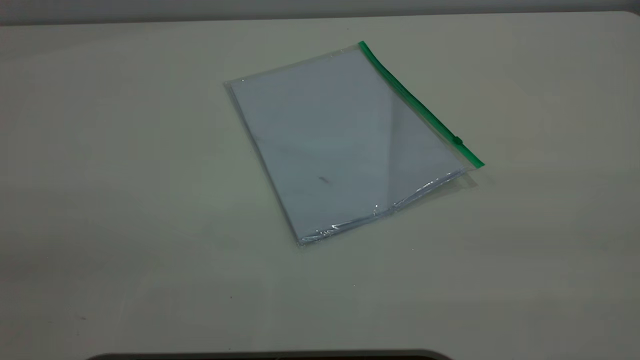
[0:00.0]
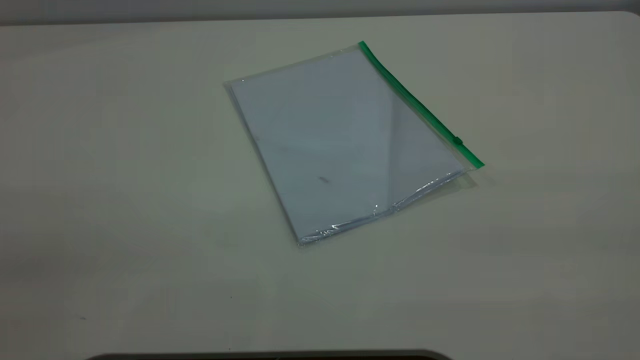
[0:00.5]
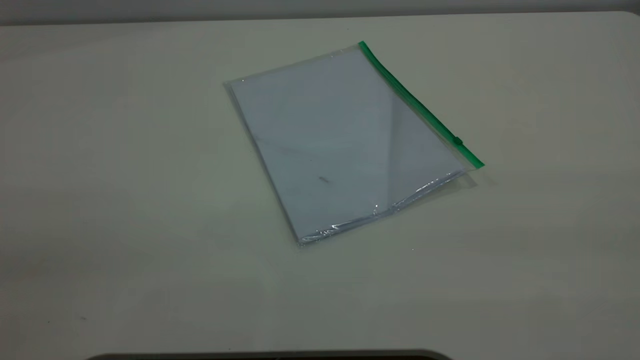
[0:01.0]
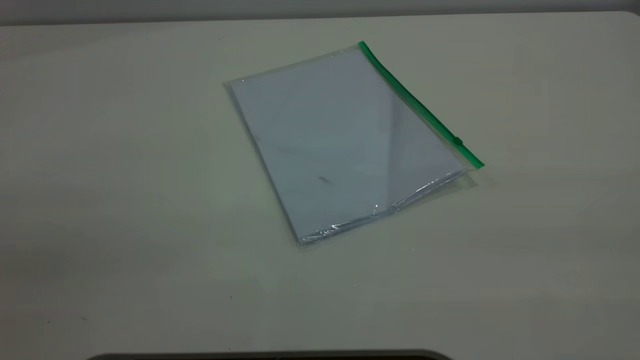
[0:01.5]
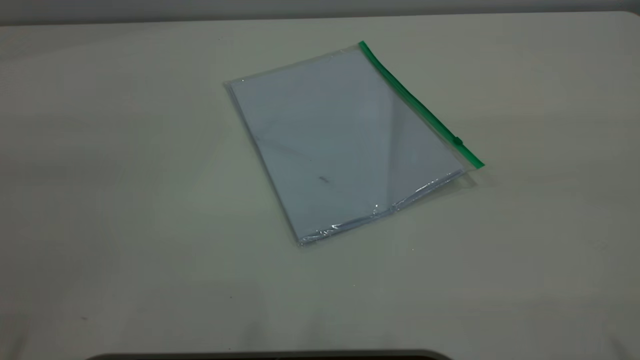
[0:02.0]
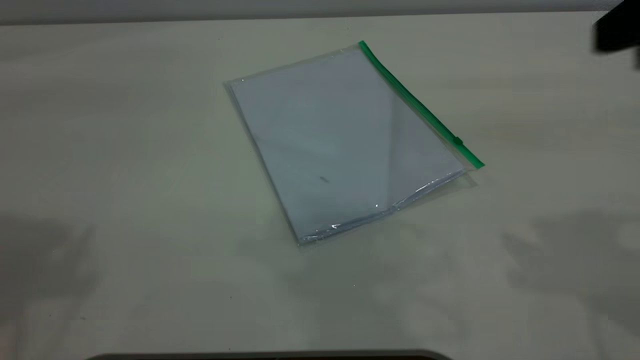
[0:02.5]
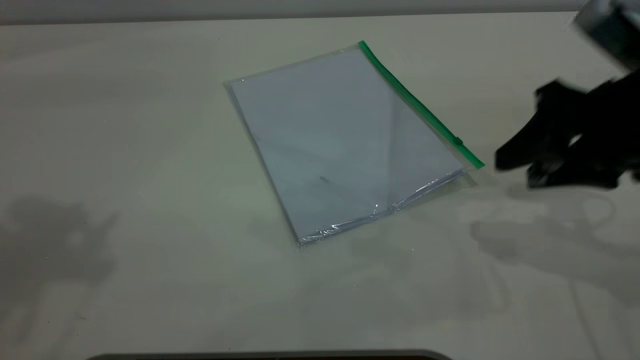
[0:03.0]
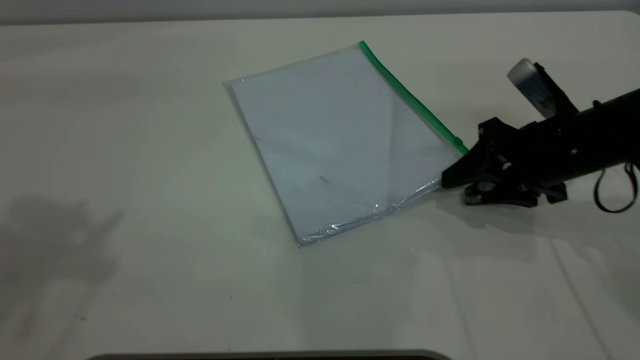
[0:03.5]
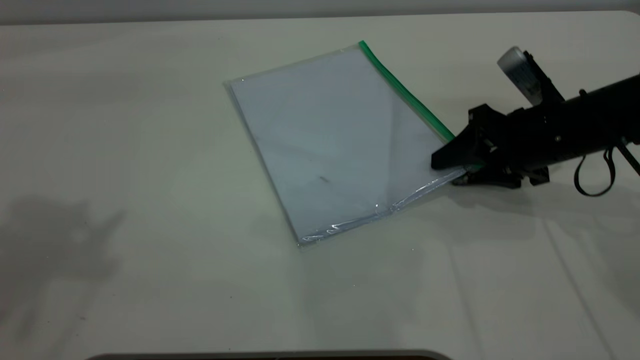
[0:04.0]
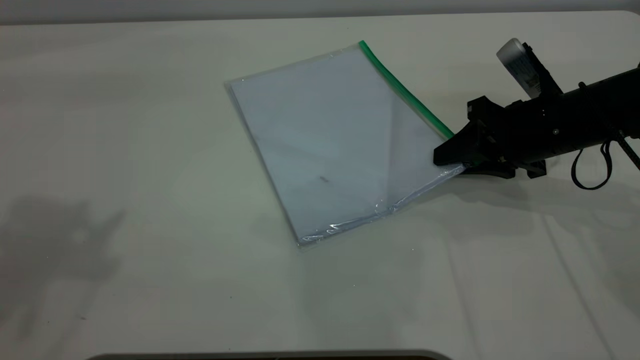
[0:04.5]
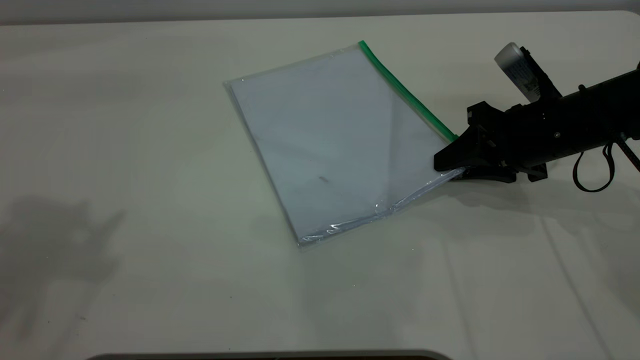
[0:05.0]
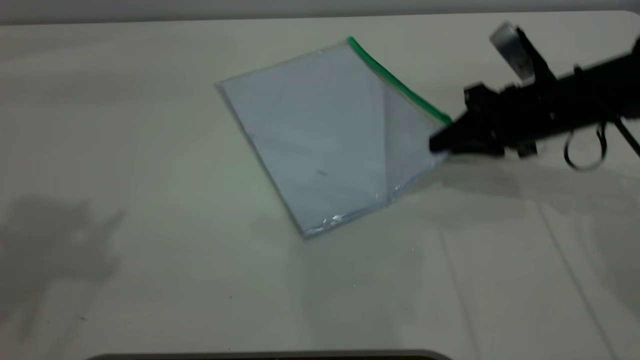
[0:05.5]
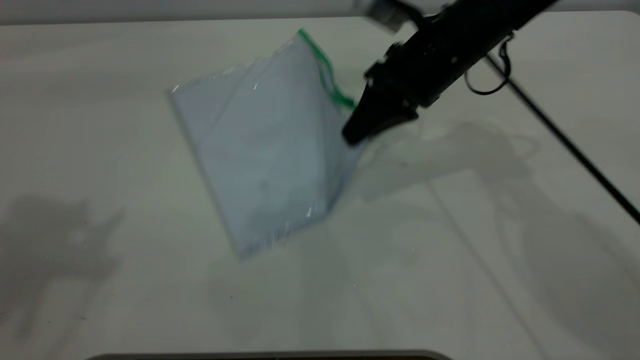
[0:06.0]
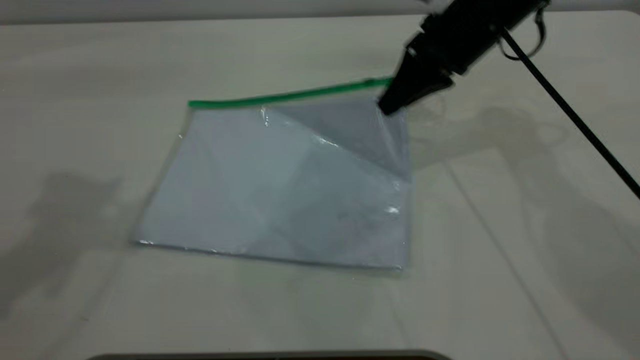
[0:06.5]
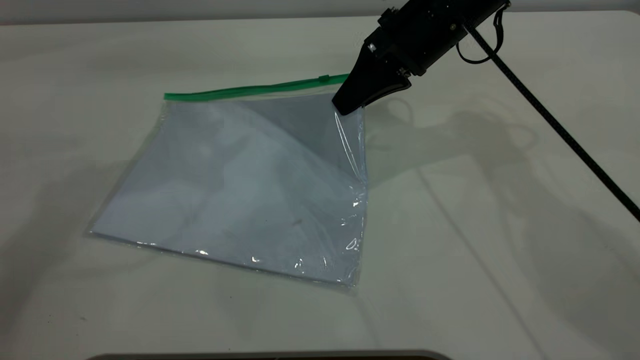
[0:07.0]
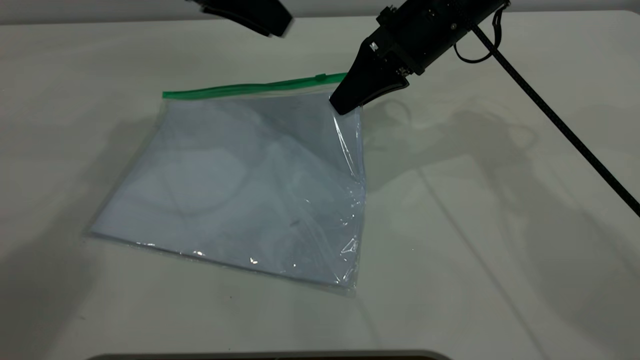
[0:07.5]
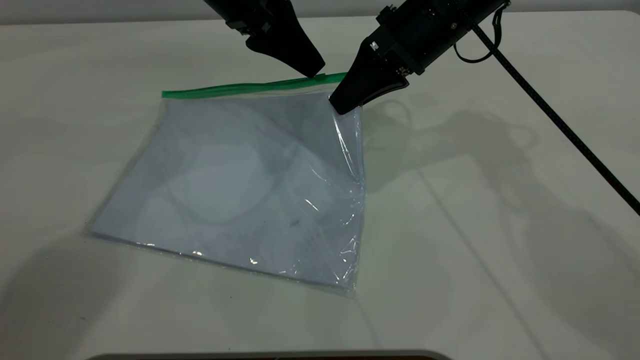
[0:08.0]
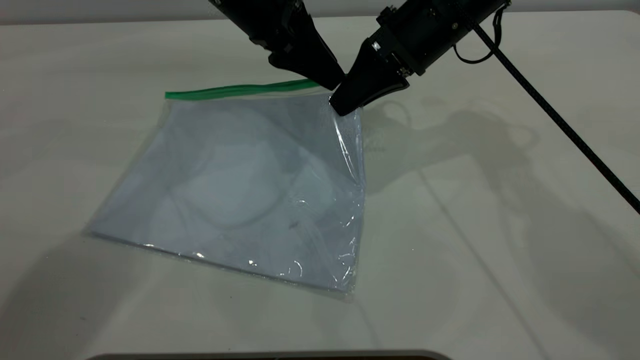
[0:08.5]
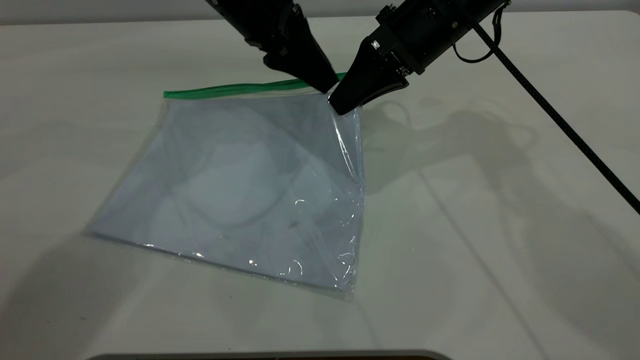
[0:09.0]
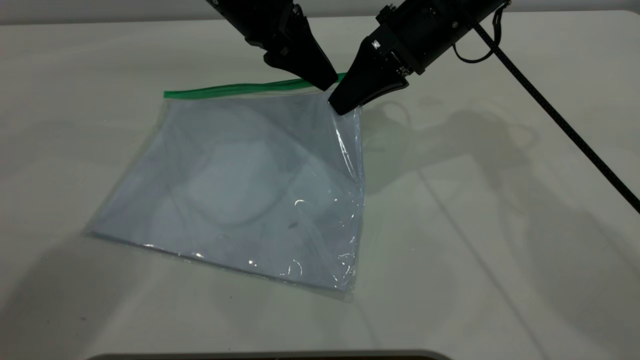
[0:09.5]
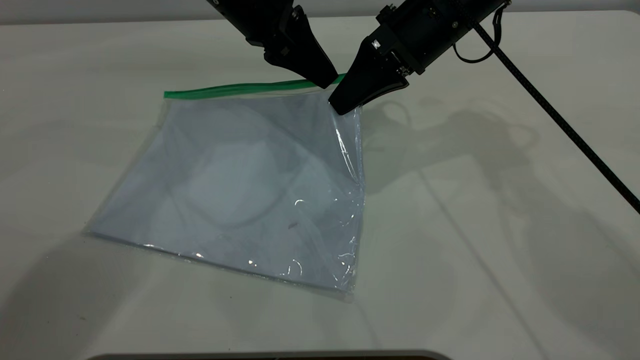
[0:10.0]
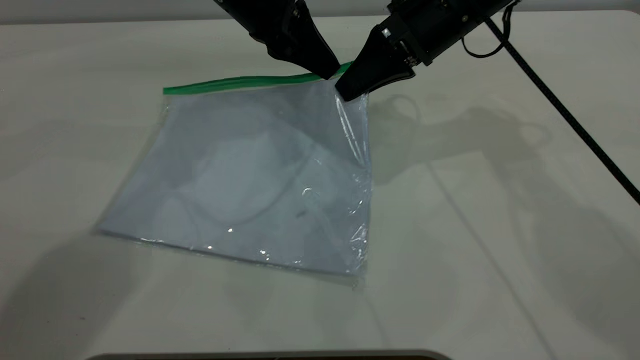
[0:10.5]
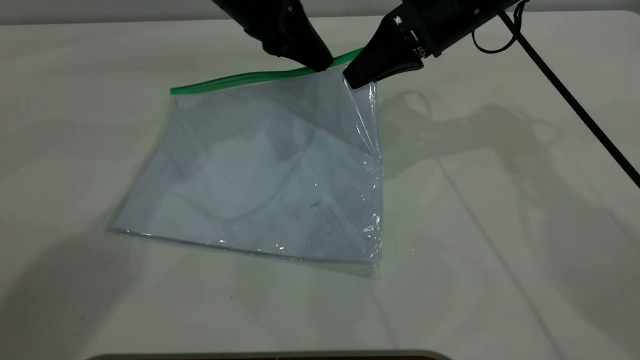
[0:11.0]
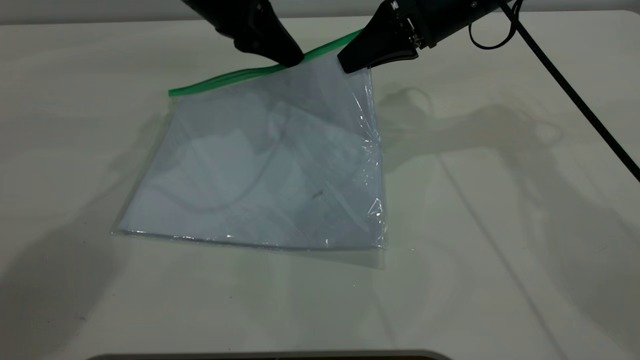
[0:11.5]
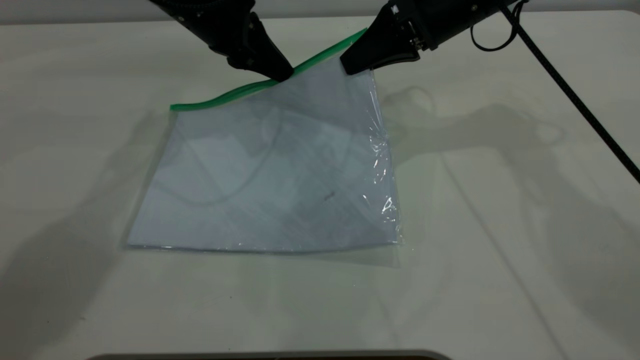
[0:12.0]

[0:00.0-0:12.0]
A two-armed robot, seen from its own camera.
Step, 0:00.0 to 0:05.0: Pick up the transparent plastic bag with the right gripper.
0:02.0 to 0:04.0: The right gripper moves downward and forward, roughly 40 cm.
0:04.0 to 0:06.0: The right gripper moves to the left and upward, some 15 cm, and closes.
0:06.0 to 0:08.0: The left gripper heads downward, forward and to the right, covering roughly 35 cm.
0:08.0 to 0:10.0: The left gripper closes.
0:10.0 to 0:12.0: The left gripper shifts about 5 cm to the left.

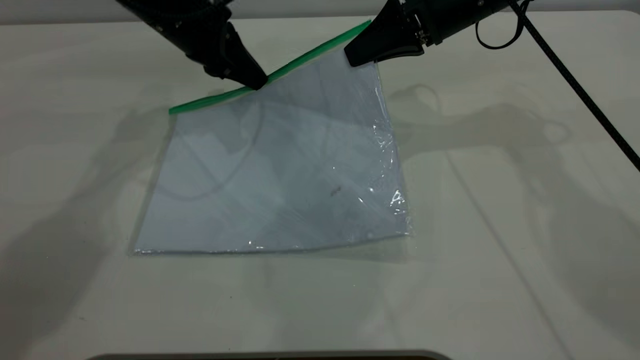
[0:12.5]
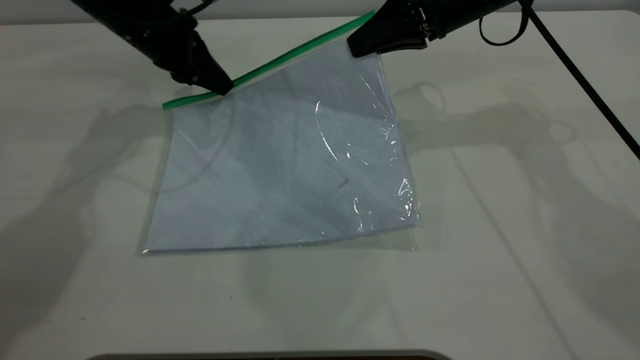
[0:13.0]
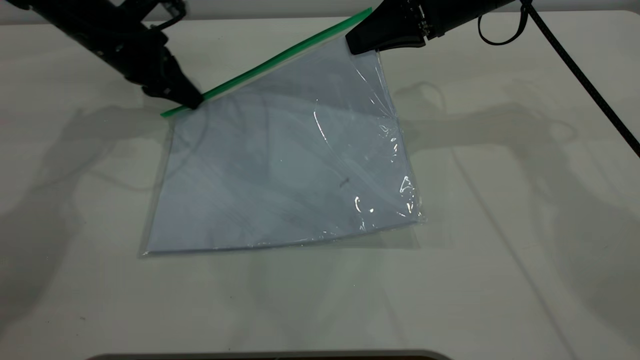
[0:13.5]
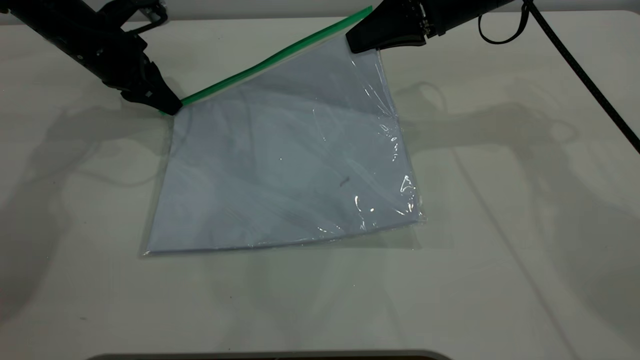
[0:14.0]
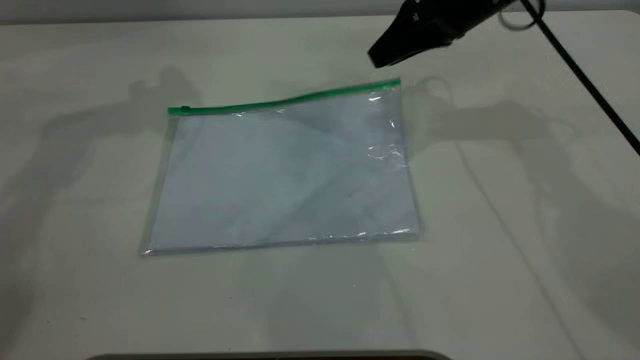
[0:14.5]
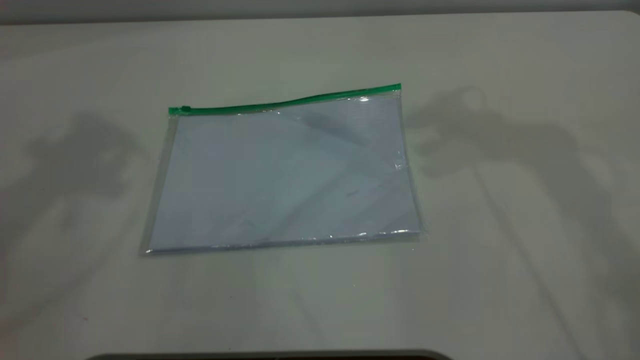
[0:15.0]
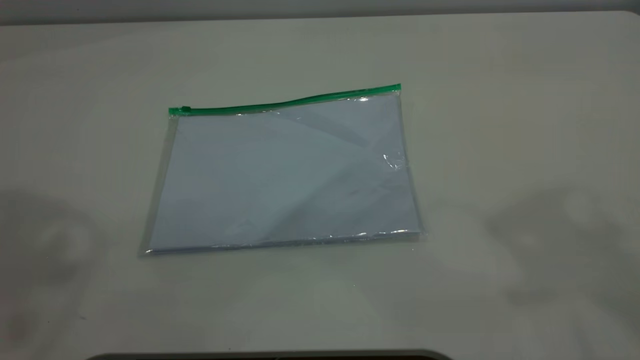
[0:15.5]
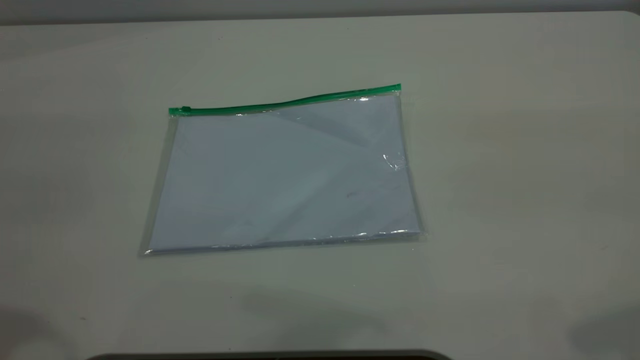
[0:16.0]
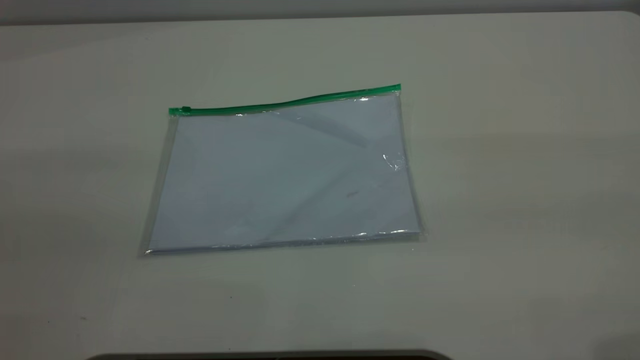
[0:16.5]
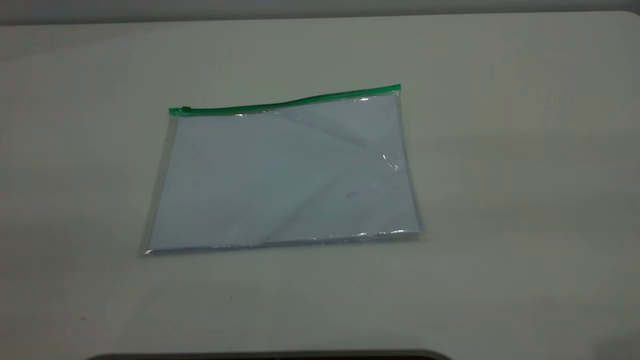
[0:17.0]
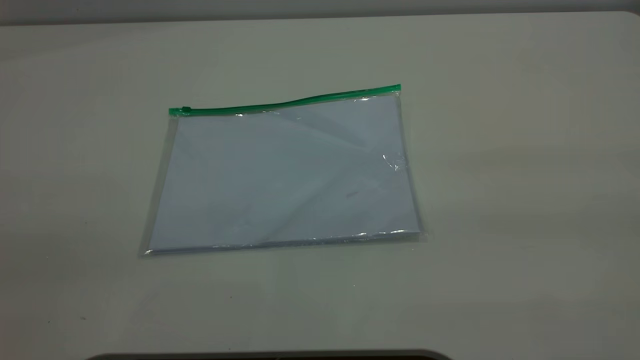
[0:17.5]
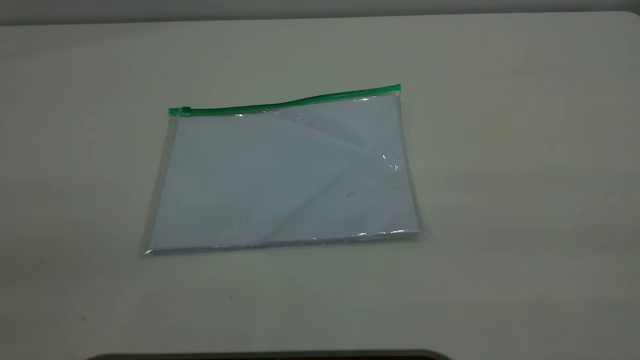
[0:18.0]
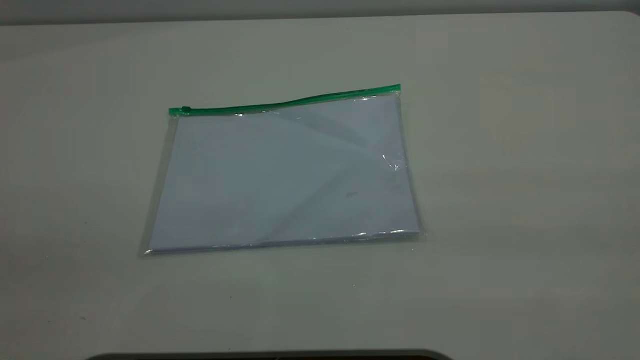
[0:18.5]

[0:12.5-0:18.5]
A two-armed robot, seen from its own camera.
0:12.5 to 0:14.5: The left gripper heads upward, covering about 20 cm, and opens its fingers, while the right gripper opens up.
0:14.5 to 0:16.5: The left gripper shifts about 40 cm backward. Meanwhile the right gripper shifts roughly 40 cm backward and upward.

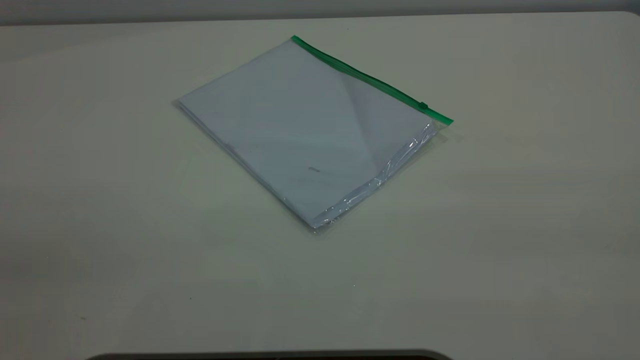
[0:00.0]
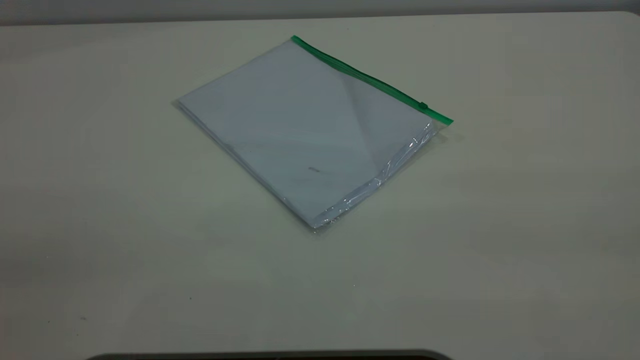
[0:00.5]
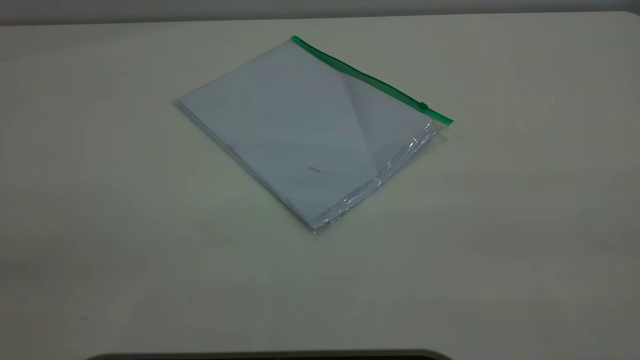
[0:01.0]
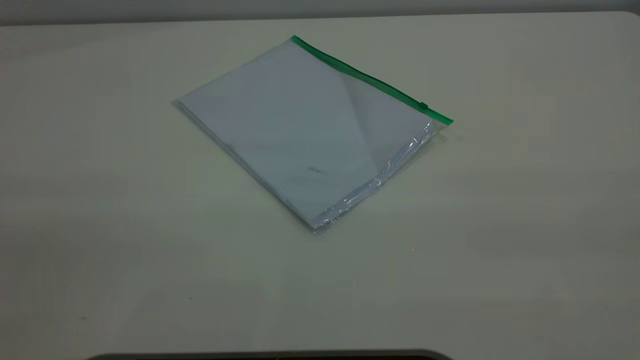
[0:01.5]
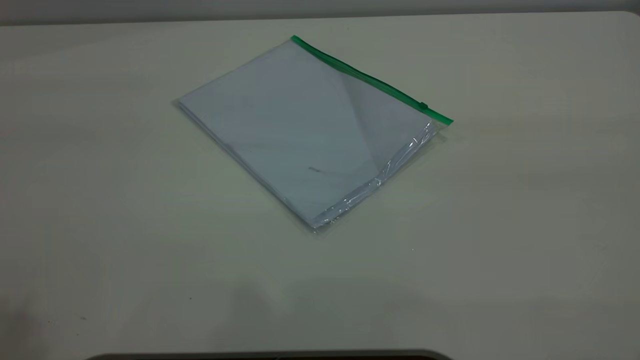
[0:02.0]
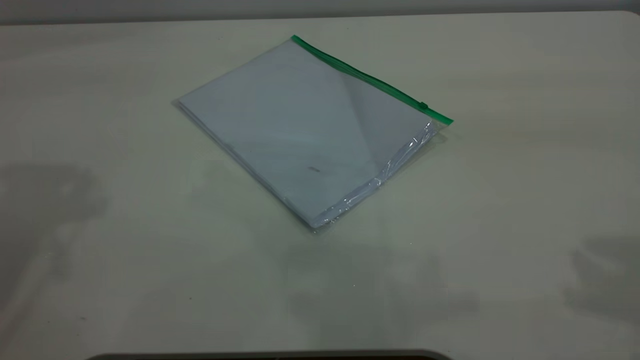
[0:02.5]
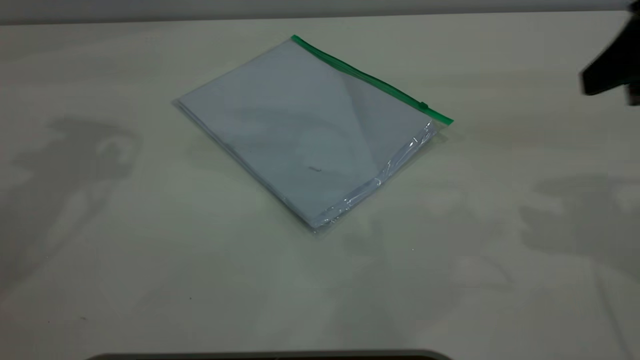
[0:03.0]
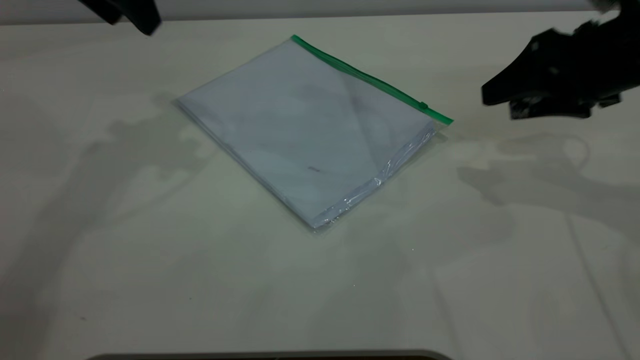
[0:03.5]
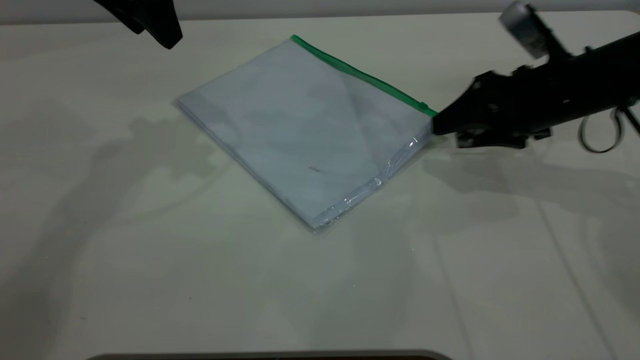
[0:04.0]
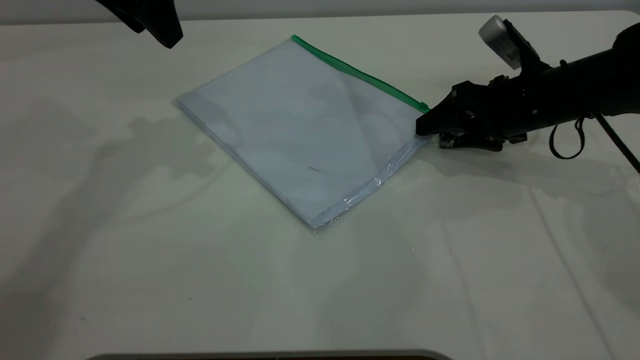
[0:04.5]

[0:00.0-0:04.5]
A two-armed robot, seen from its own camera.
0:02.0 to 0:04.5: The left gripper is displaced forward and downward by about 30 cm; the right gripper moves downward and forward, roughly 50 cm.